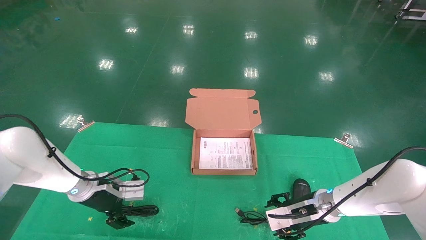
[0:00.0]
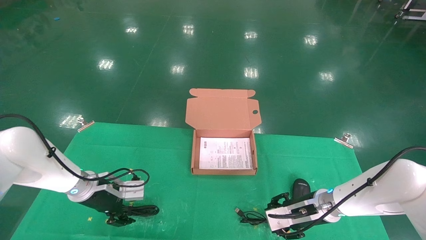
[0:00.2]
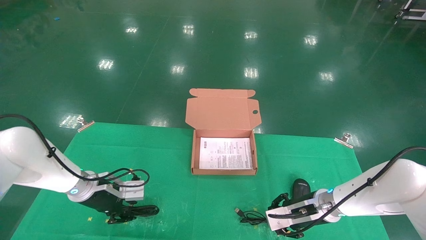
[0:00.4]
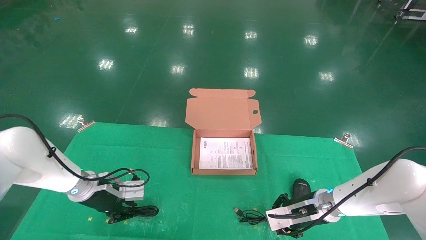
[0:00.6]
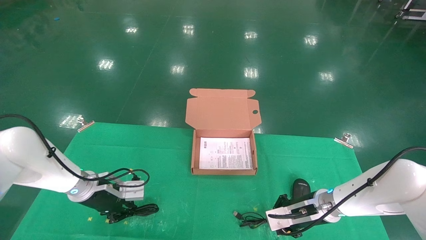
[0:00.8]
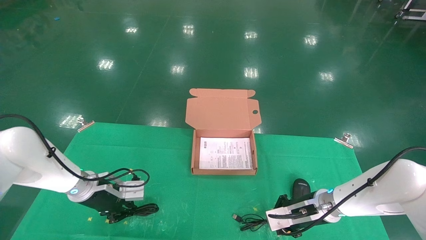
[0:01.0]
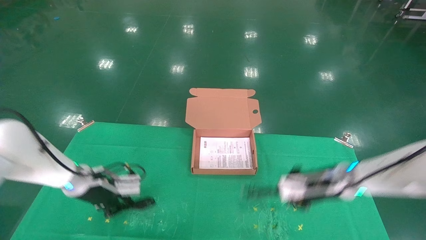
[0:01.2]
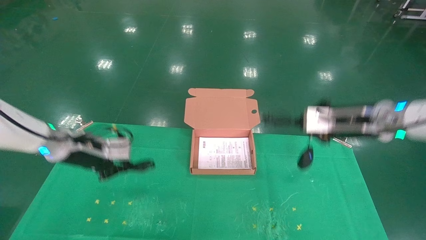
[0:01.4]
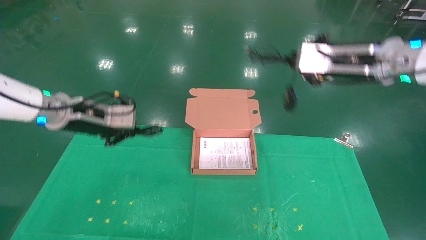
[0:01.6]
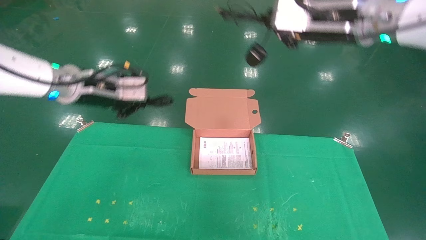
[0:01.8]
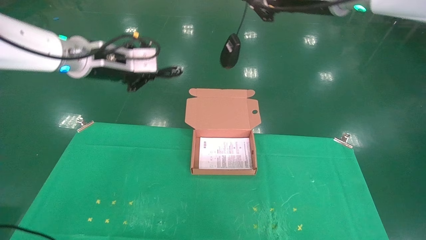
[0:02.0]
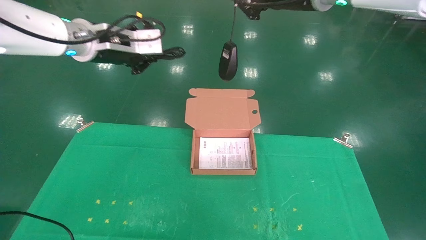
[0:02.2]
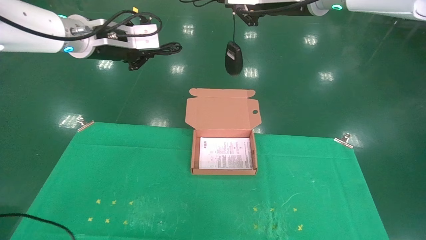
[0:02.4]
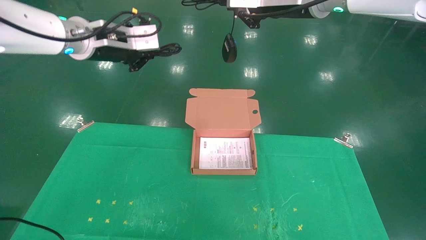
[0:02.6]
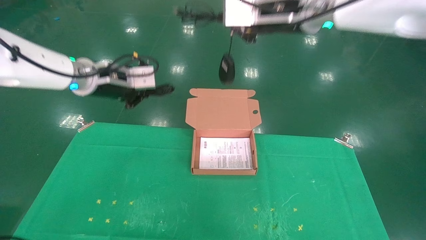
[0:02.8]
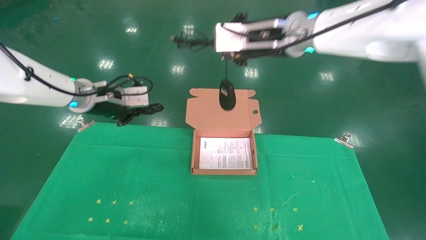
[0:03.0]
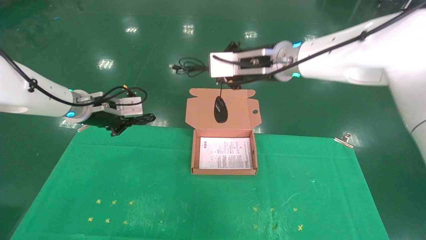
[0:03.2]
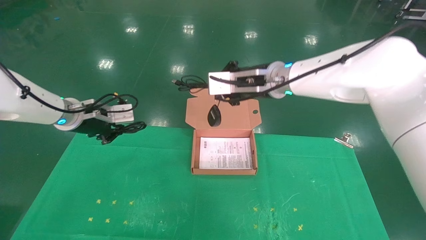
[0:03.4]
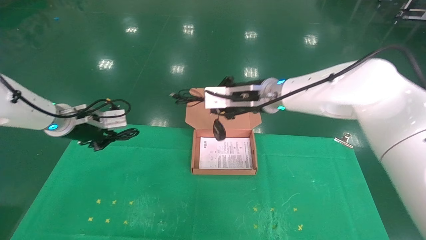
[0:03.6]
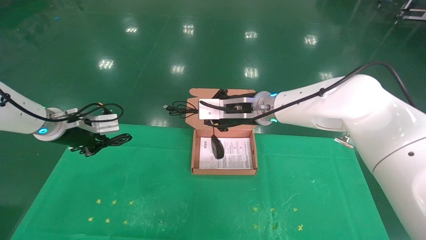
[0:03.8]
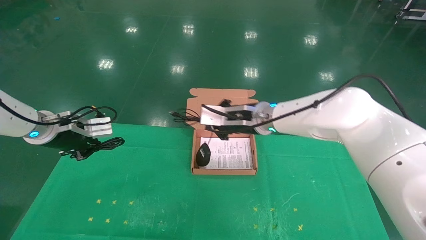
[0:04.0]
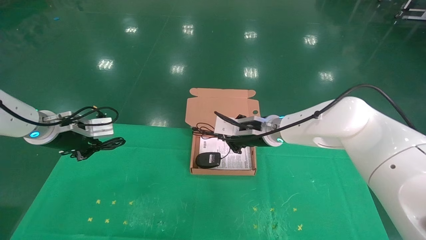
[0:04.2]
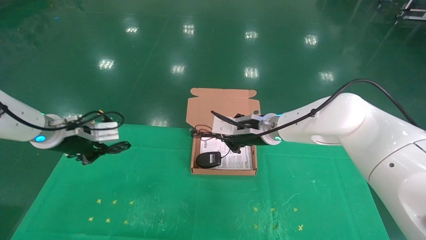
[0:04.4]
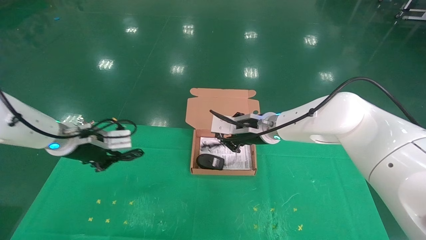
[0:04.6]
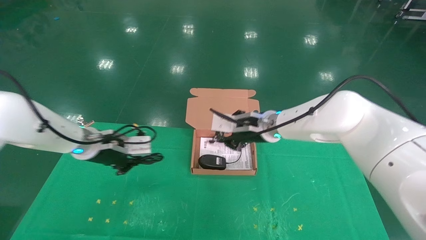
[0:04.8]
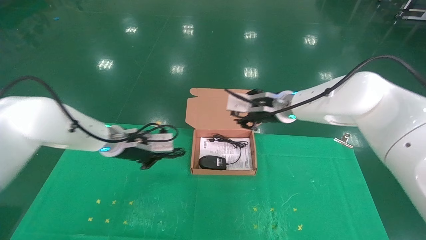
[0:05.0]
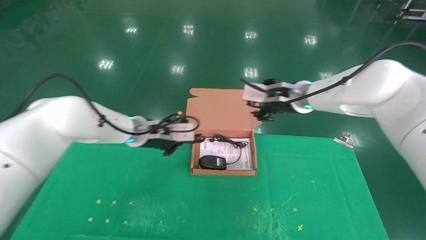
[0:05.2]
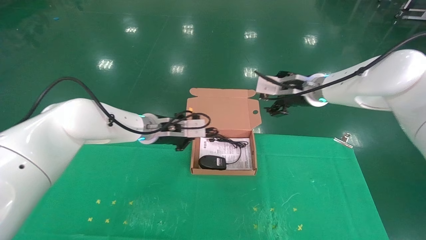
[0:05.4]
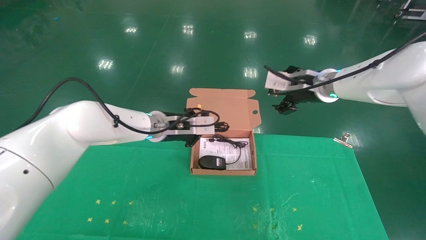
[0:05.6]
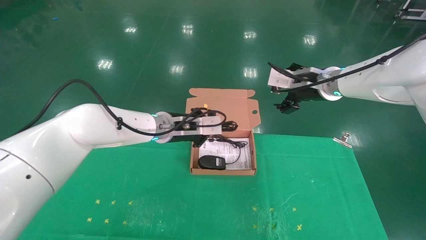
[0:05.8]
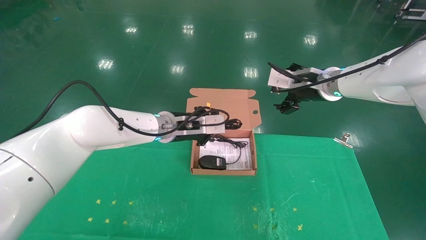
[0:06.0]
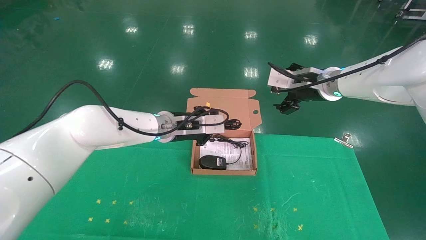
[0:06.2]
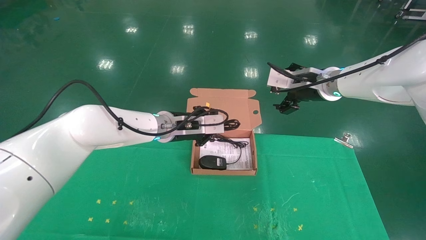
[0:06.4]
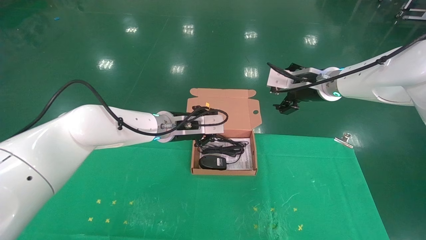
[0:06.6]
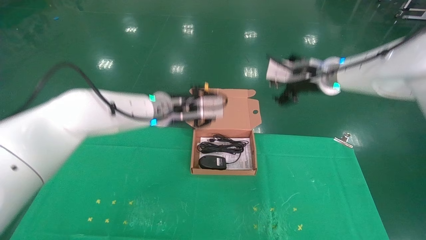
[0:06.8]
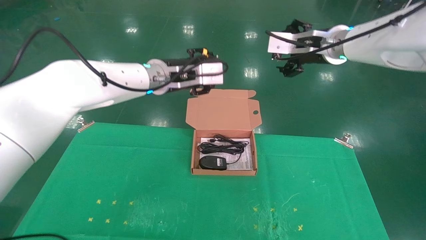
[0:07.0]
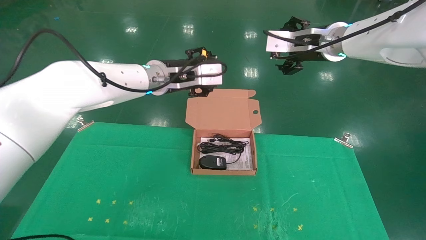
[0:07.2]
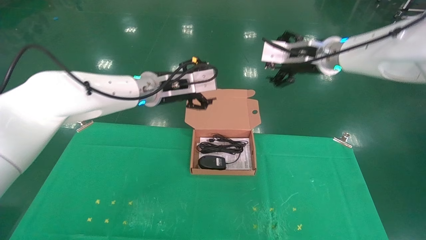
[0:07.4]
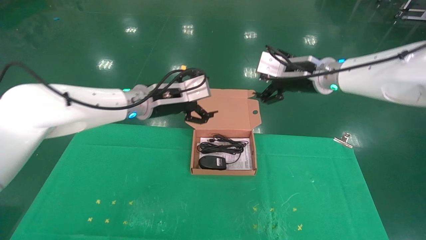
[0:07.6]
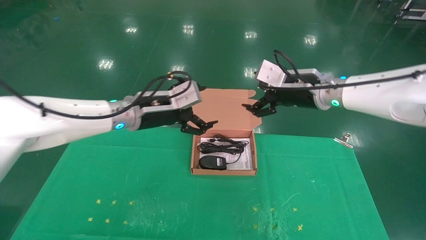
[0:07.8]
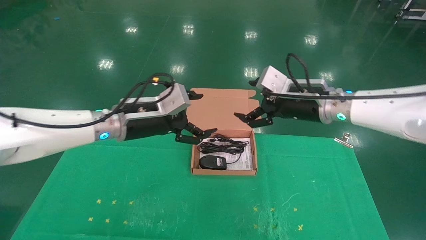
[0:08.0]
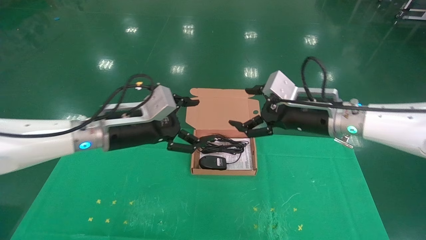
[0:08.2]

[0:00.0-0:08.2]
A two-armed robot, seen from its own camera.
Task of the whole recording: grasp data cable left put into box grasp mouse right put into box.
Step, 0:01.0 to 0:06.6: Place the mouse and power cord into the box.
0:00.0 to 0:01.6: The left gripper shifts about 20 cm upward, and closes, while the right gripper goes about 30 cm upward, and closes.
0:01.6 to 0:03.2: The left gripper reaches about 15 cm upward, then returns. Meanwhile the right gripper is displaced to the left by approximately 15 cm.
0:03.2 to 0:05.0: The right gripper goes about 10 cm downward and forward; the left gripper travels to the right and downward by some 10 cm.
0:05.0 to 0:06.6: The left gripper shifts approximately 10 cm to the right. The right gripper goes approximately 10 cm to the right and upward, and opens.
0:06.6 to 0:08.2: The left gripper moves to the left and backward, roughly 10 cm, and opens up; the right gripper shifts some 10 cm backward and downward.
